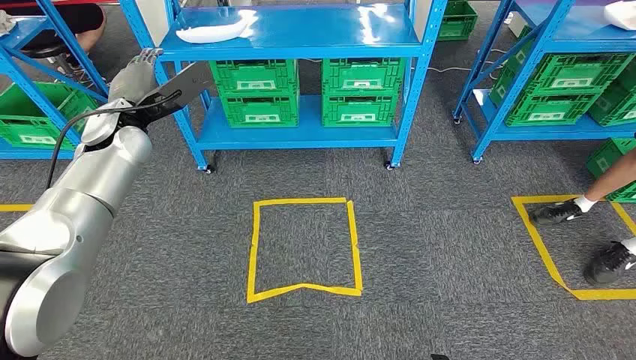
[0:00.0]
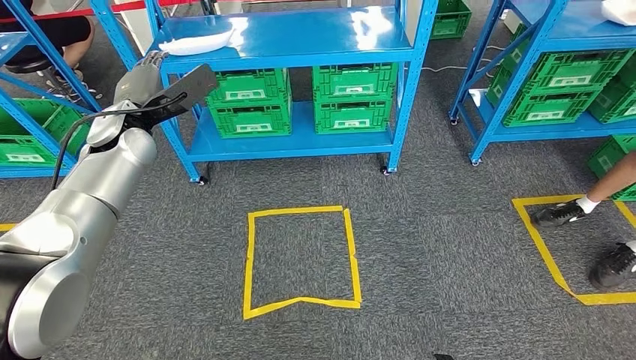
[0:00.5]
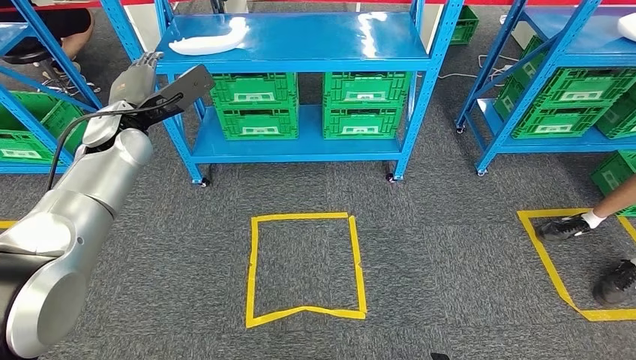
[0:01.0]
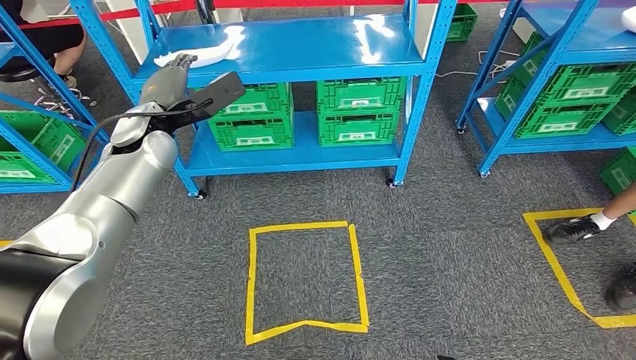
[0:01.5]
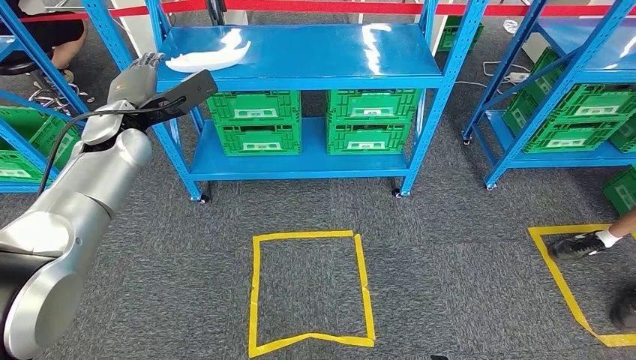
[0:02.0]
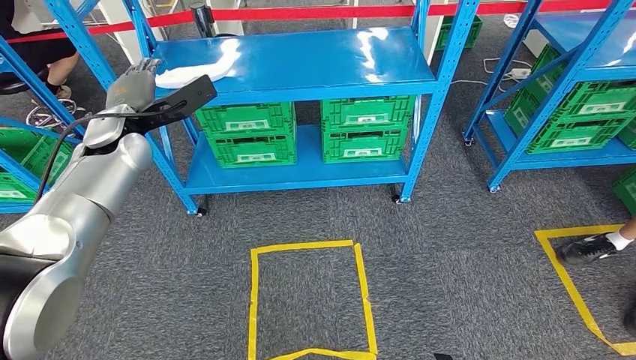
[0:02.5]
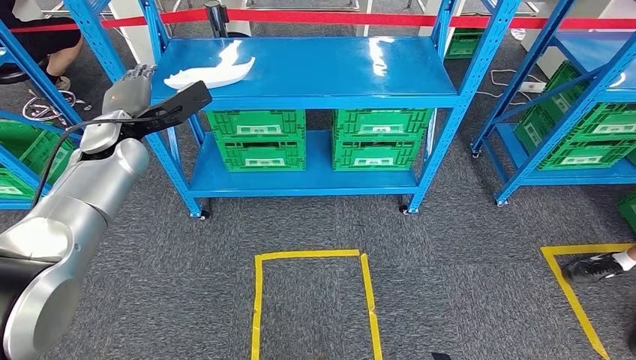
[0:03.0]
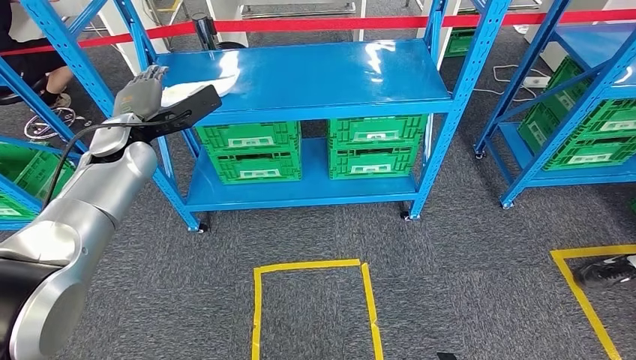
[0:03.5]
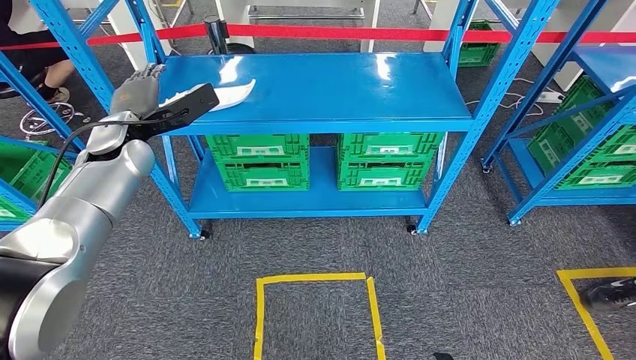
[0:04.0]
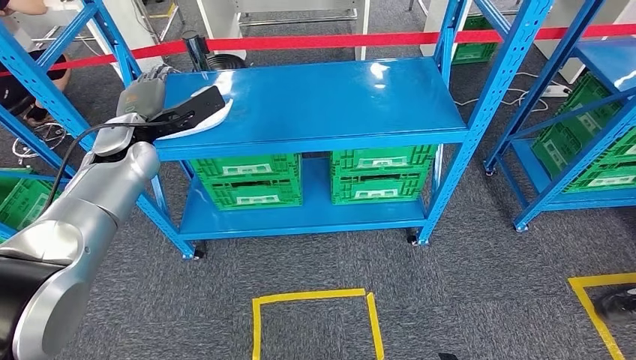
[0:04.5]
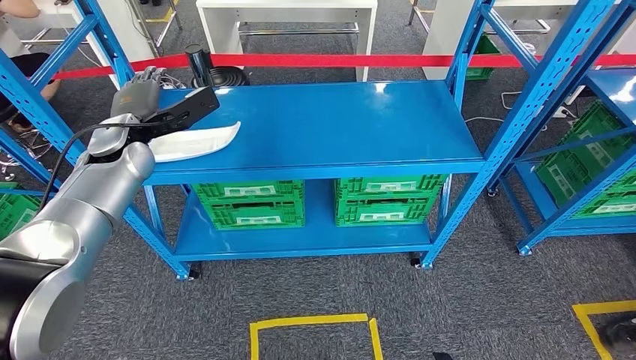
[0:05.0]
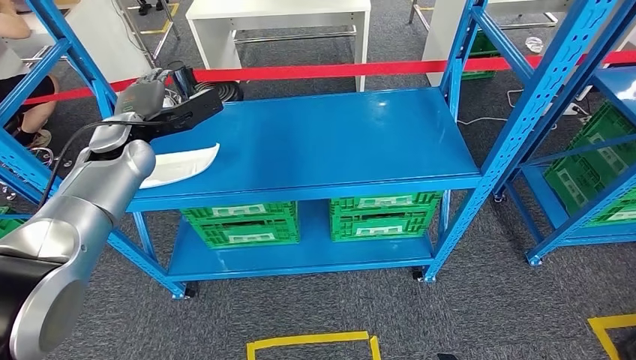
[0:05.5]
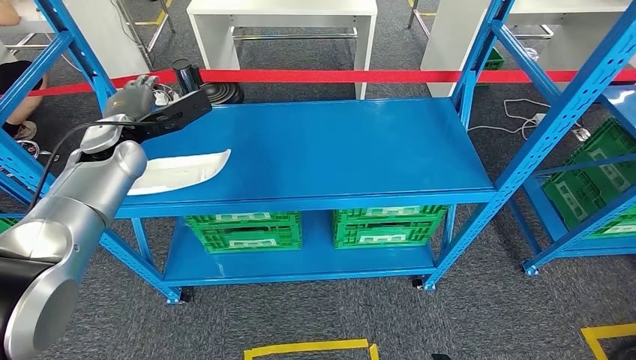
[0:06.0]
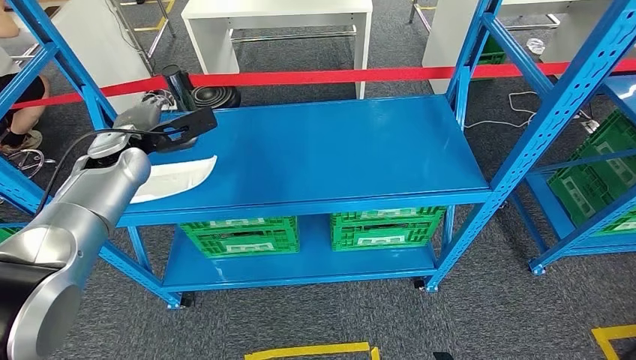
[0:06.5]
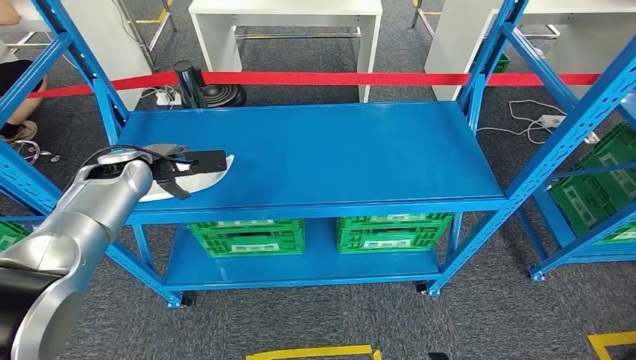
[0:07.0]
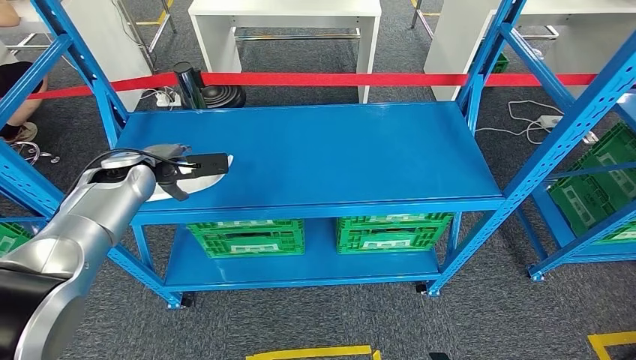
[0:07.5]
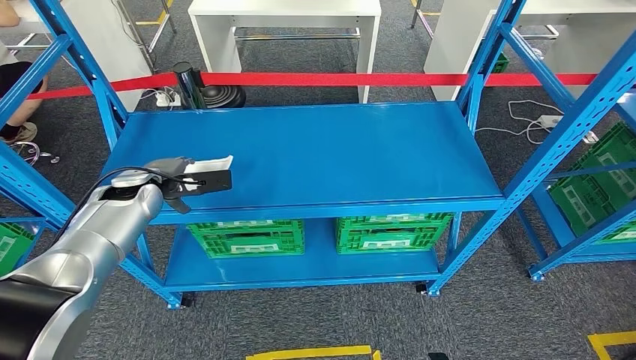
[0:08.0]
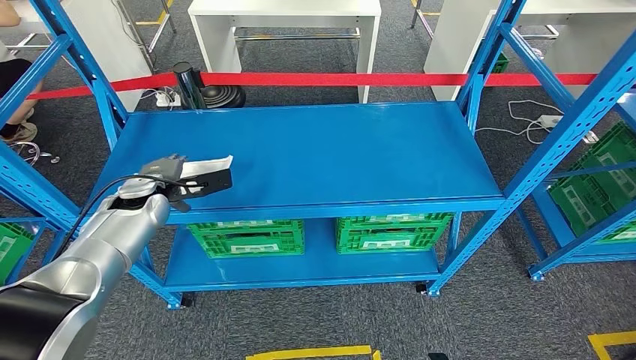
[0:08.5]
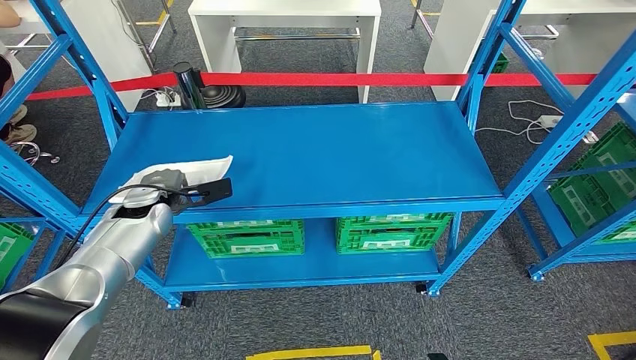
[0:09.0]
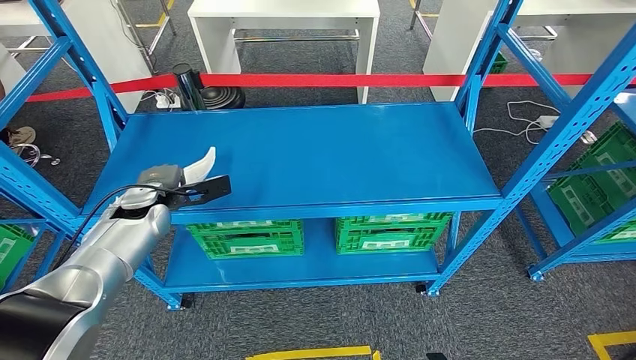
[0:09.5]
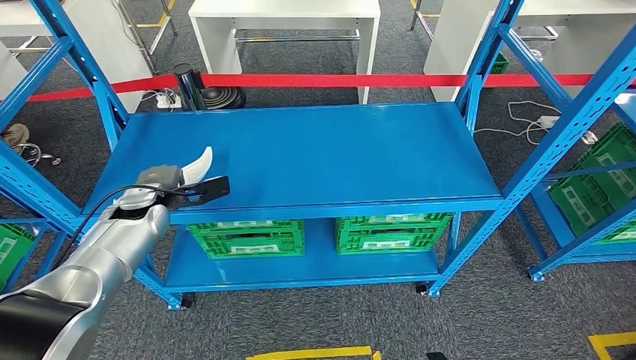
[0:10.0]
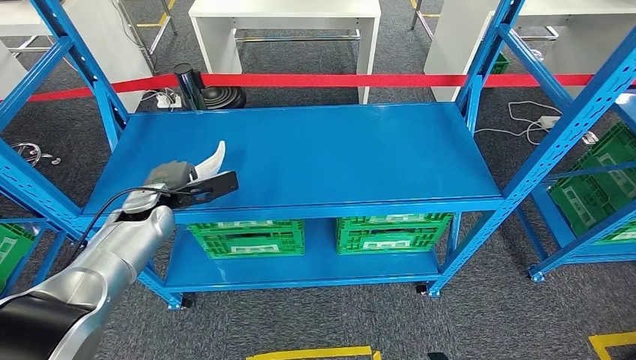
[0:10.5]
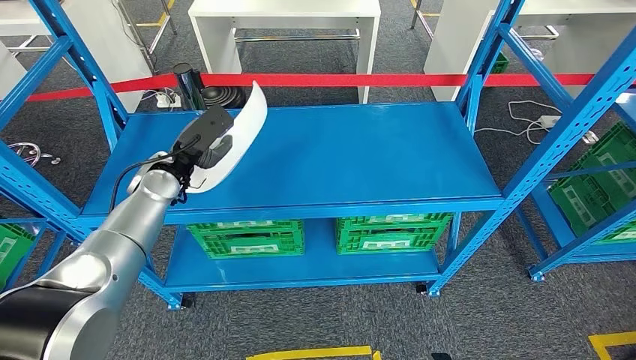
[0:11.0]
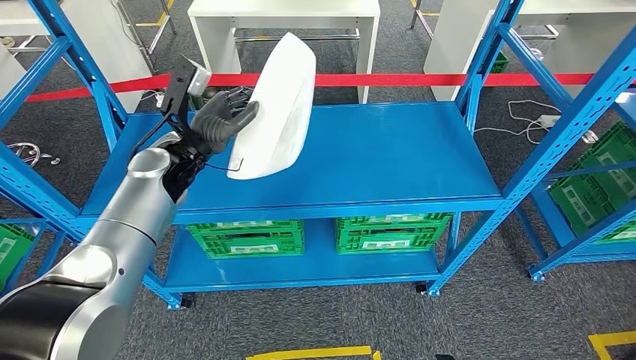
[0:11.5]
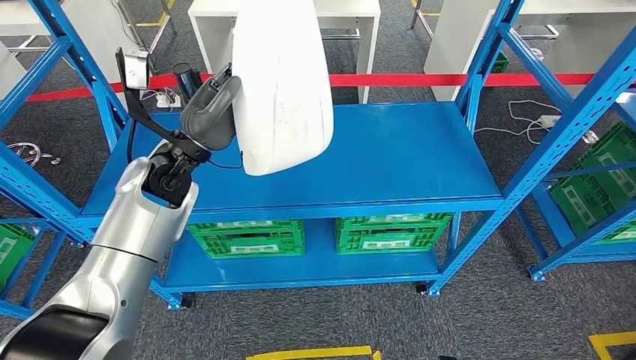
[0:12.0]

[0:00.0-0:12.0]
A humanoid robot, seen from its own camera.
0:08.0 to 0:10.0: The hands stay close to where they were, moving slightly.
0:10.0 to 0:12.0: The left hand heads upward and to the right, covering some 15 cm.

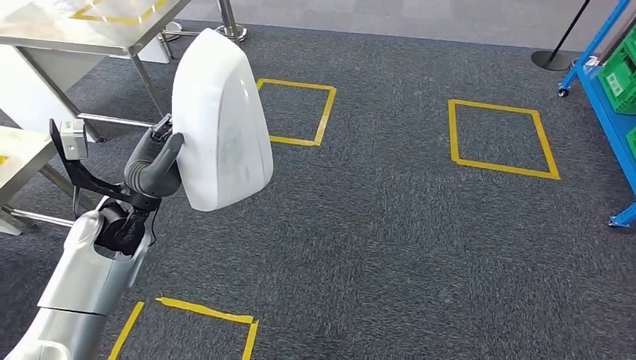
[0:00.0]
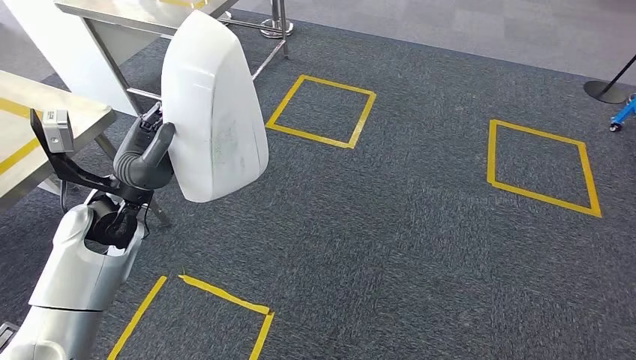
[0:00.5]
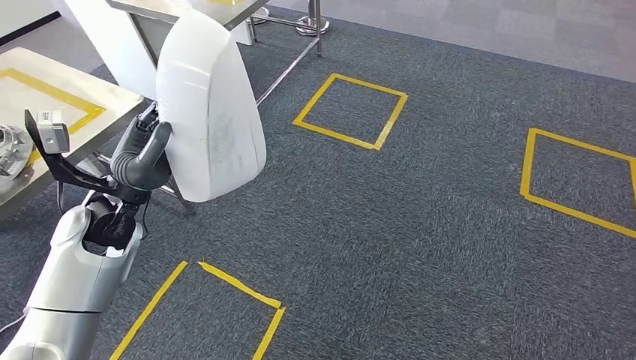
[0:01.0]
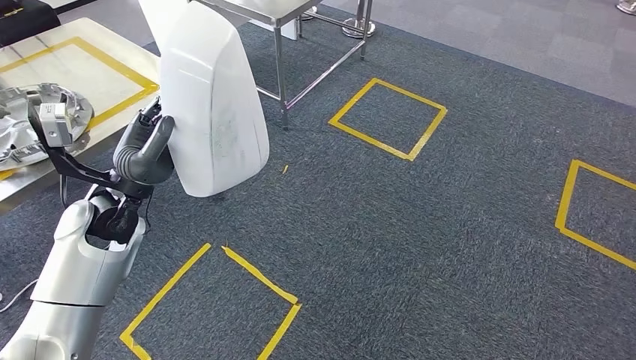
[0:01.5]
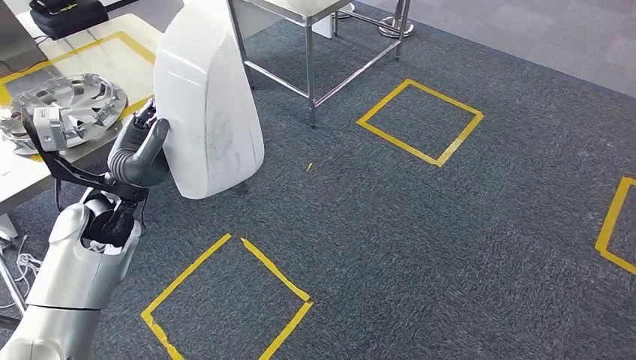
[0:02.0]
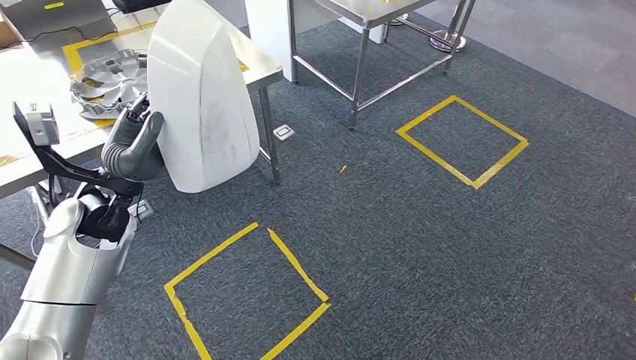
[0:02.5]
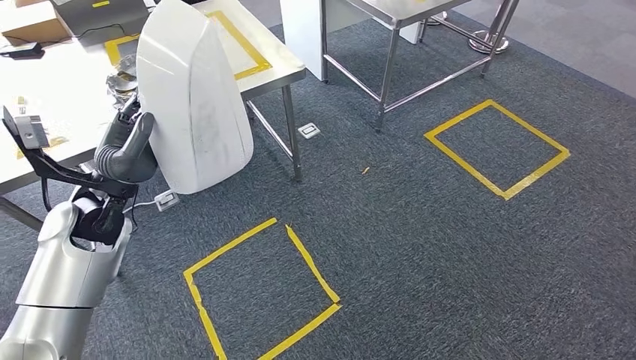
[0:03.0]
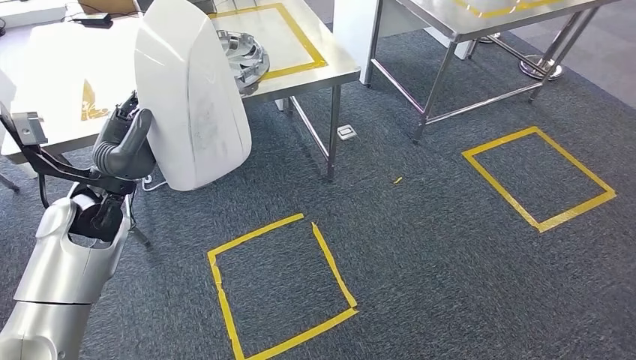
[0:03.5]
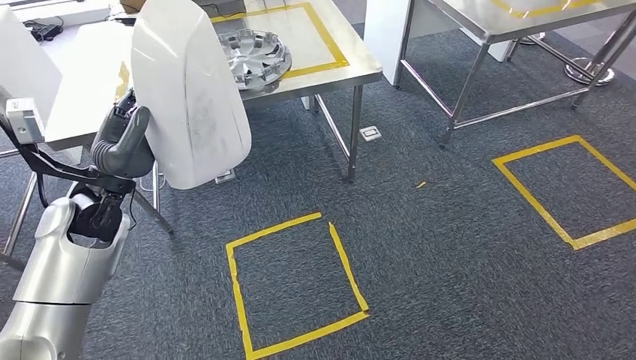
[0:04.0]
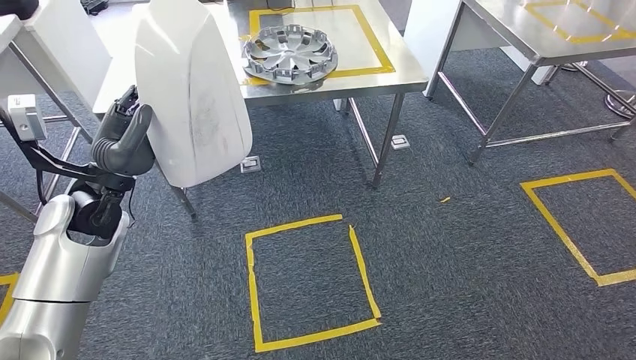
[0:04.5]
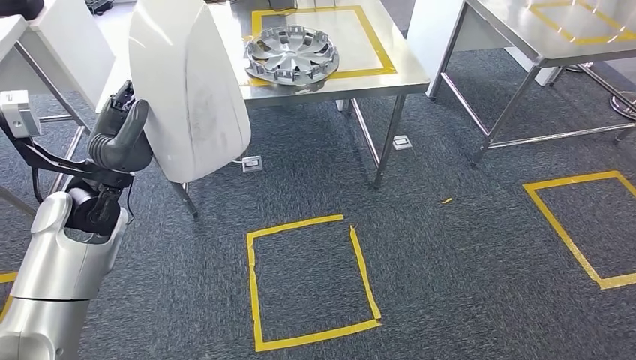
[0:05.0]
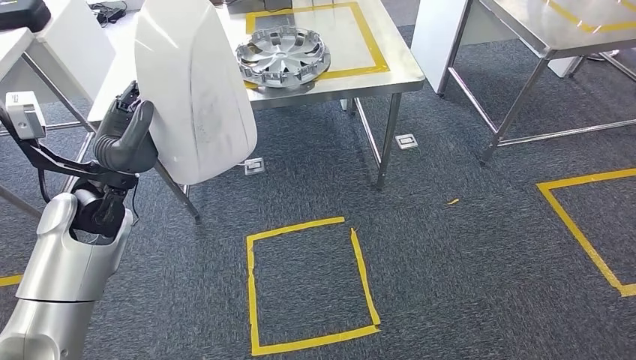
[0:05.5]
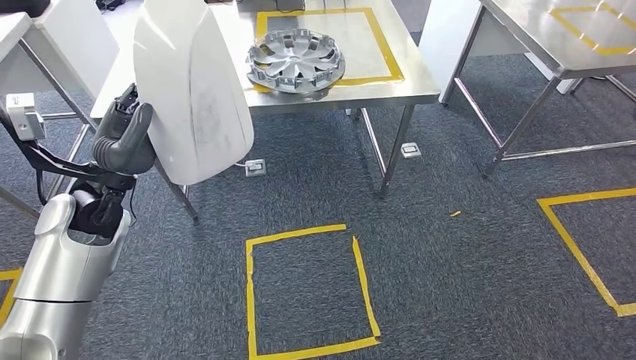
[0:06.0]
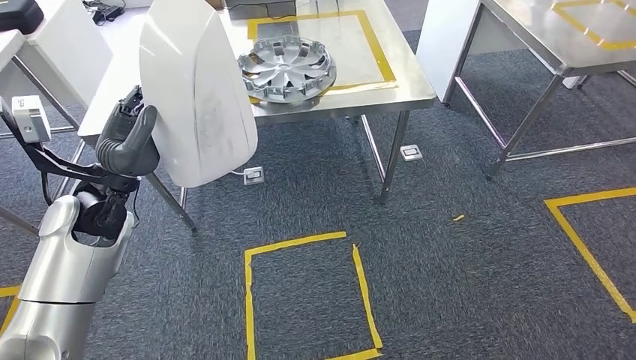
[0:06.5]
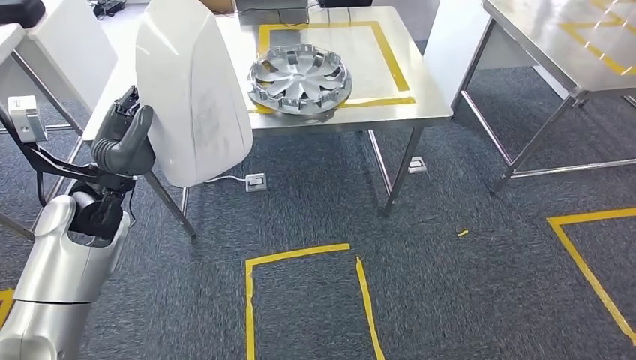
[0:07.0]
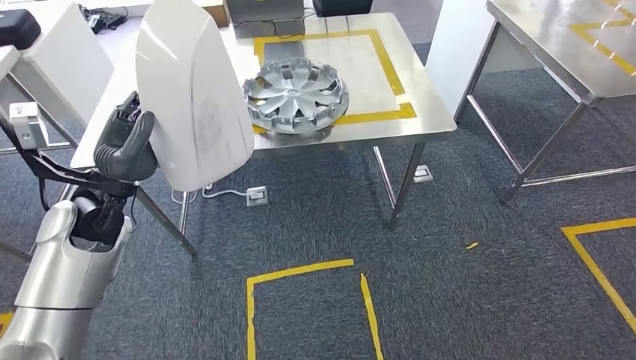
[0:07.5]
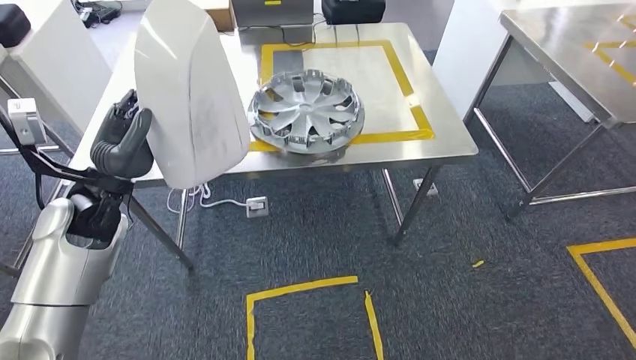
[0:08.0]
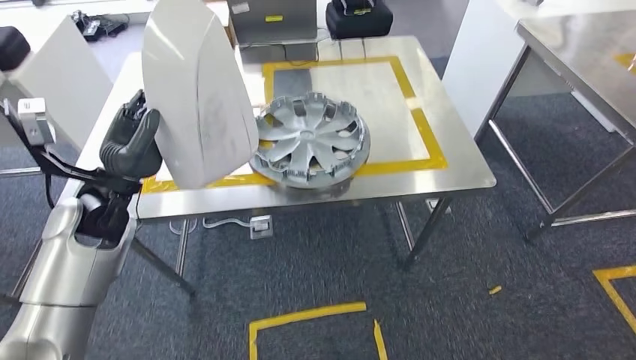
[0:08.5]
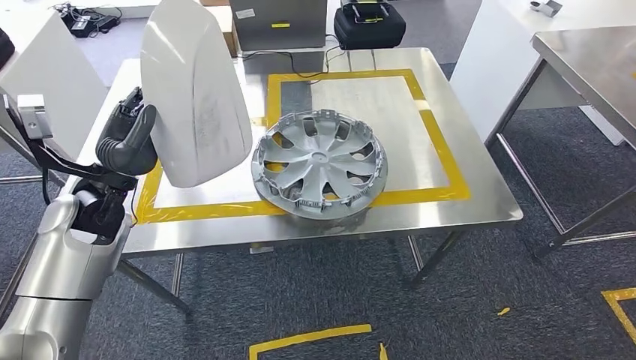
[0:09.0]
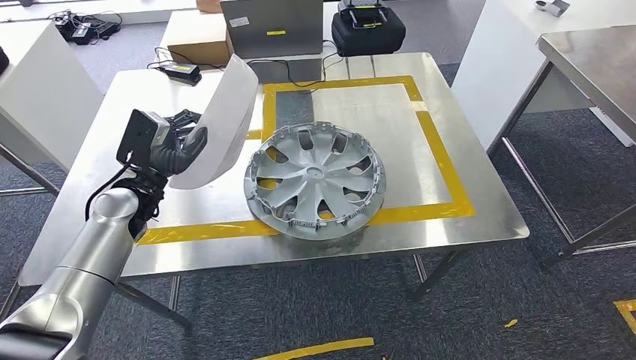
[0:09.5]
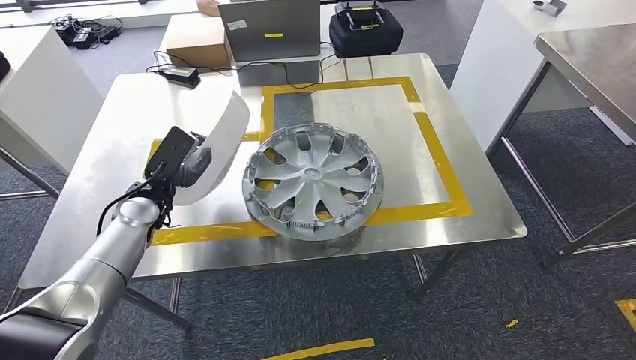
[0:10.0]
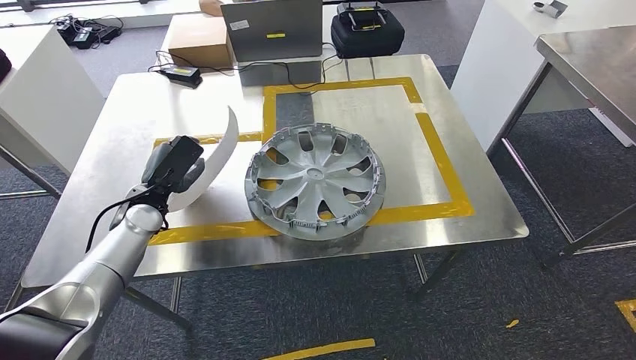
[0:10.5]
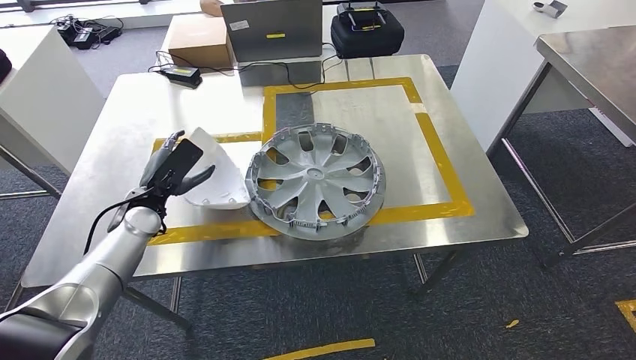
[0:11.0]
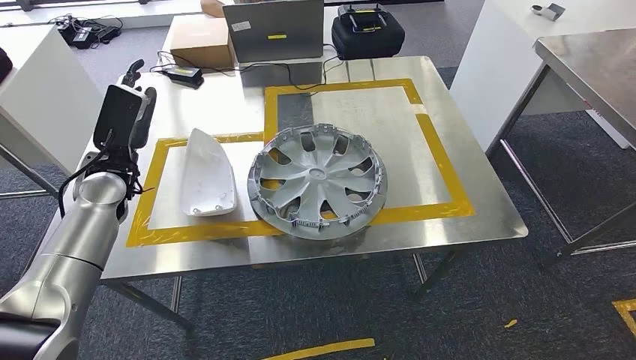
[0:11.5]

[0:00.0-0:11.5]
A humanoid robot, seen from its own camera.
Step, 0:00.0 to 0:08.5: Move the small component to the workbench.
